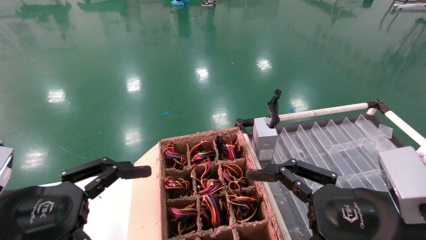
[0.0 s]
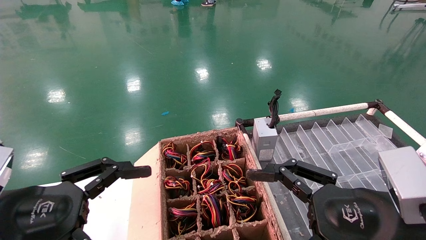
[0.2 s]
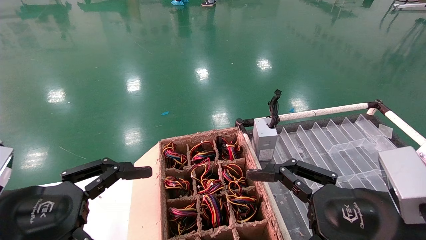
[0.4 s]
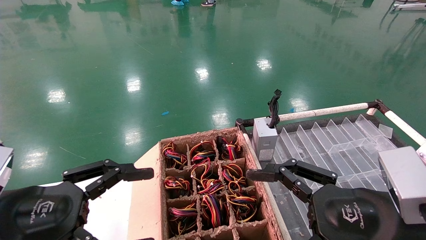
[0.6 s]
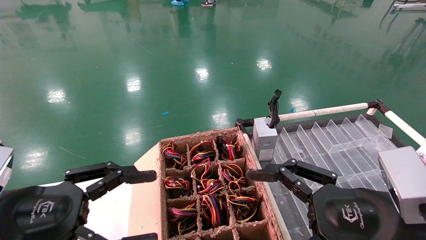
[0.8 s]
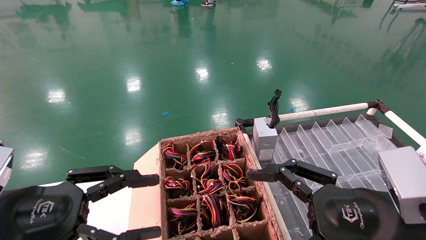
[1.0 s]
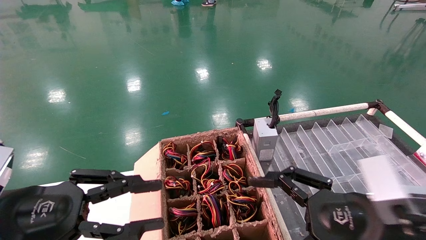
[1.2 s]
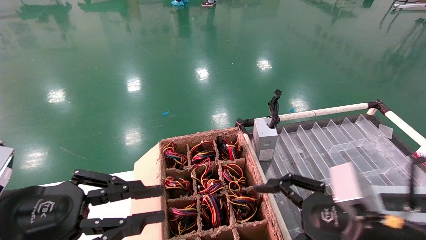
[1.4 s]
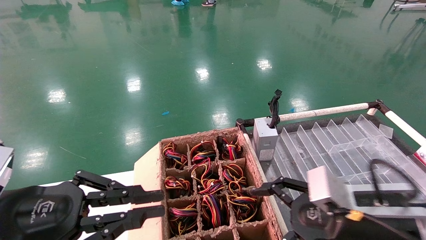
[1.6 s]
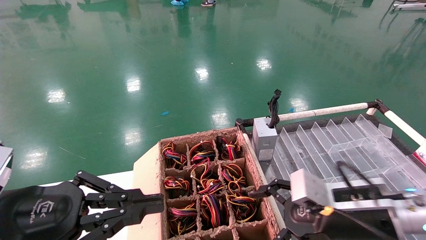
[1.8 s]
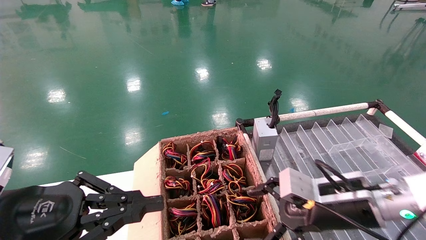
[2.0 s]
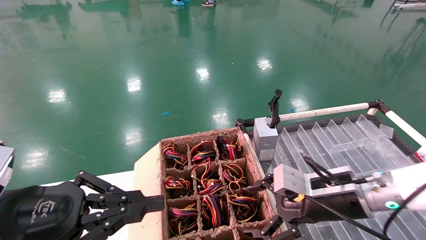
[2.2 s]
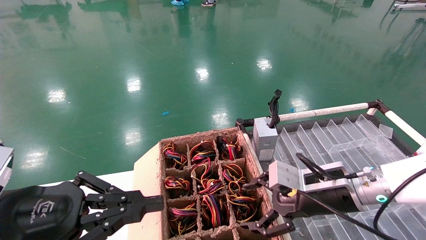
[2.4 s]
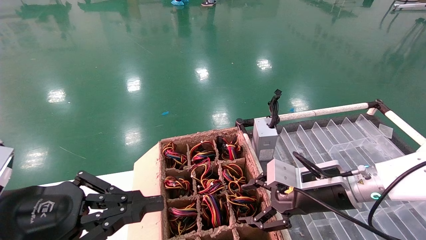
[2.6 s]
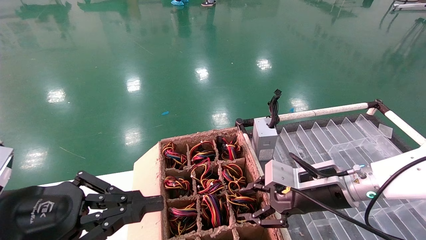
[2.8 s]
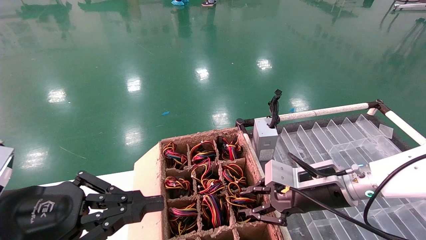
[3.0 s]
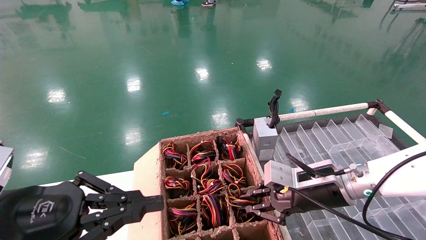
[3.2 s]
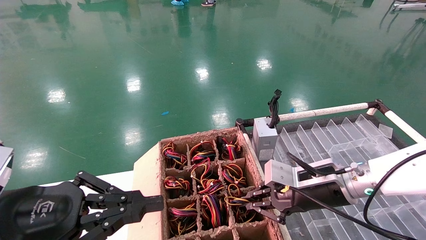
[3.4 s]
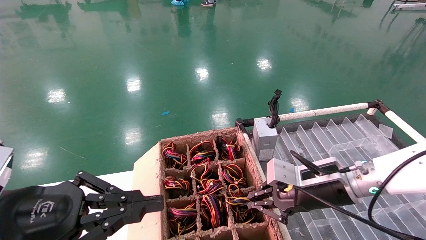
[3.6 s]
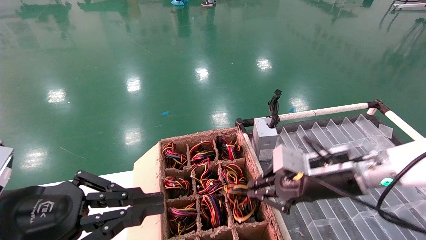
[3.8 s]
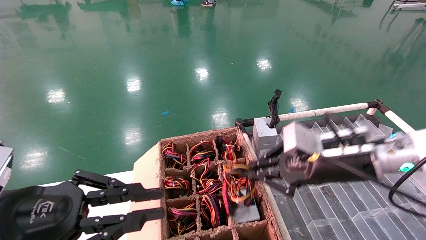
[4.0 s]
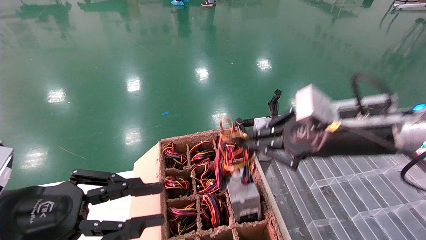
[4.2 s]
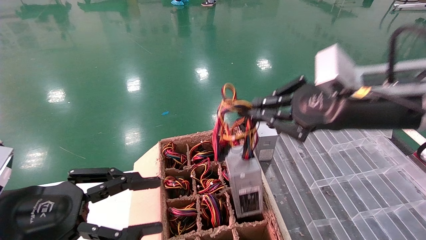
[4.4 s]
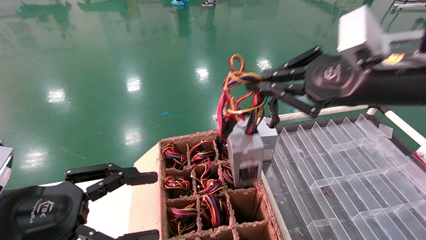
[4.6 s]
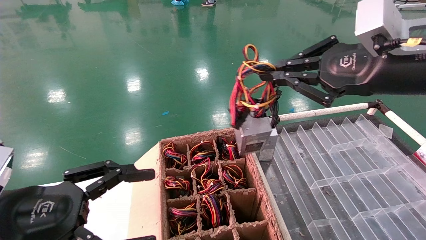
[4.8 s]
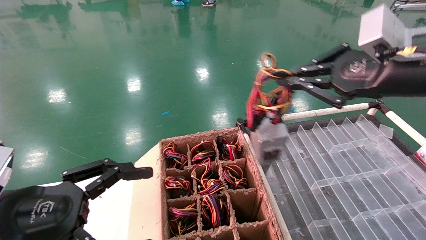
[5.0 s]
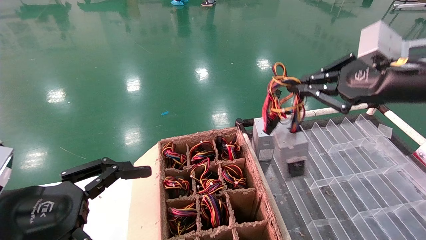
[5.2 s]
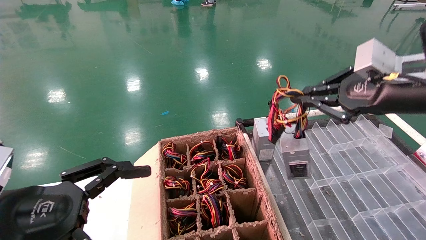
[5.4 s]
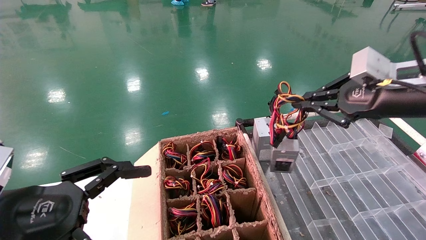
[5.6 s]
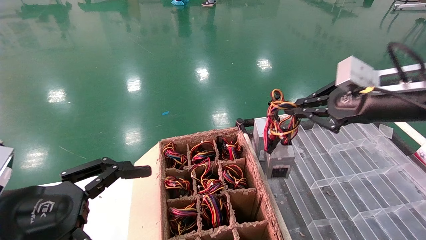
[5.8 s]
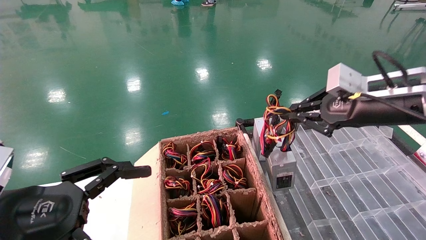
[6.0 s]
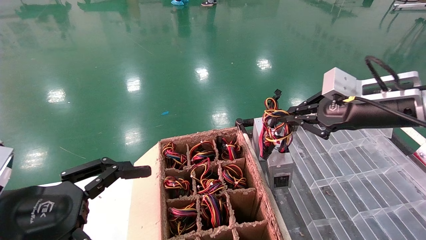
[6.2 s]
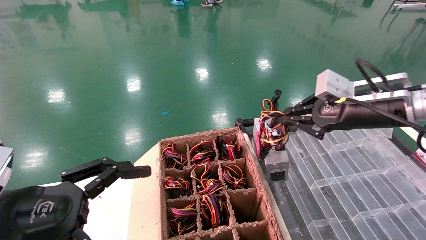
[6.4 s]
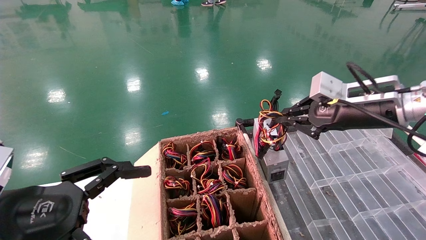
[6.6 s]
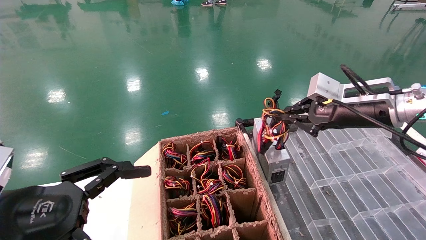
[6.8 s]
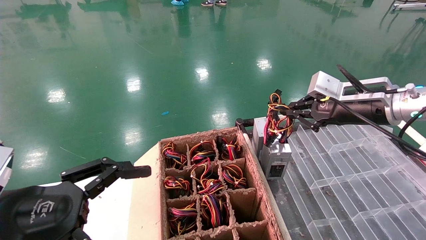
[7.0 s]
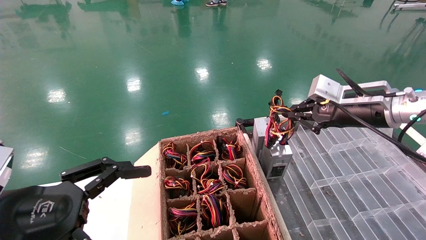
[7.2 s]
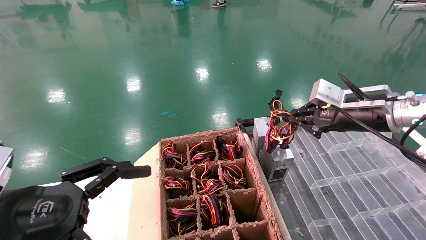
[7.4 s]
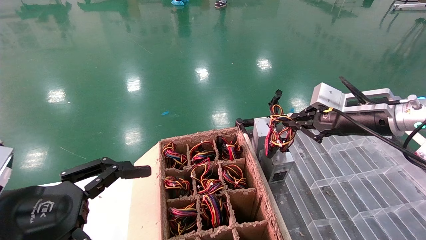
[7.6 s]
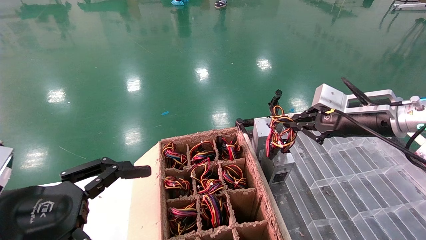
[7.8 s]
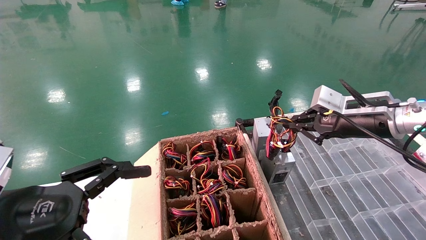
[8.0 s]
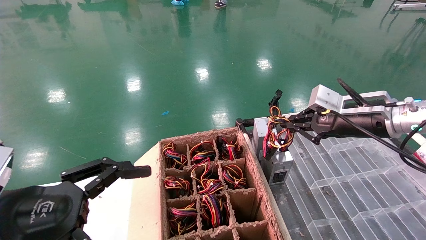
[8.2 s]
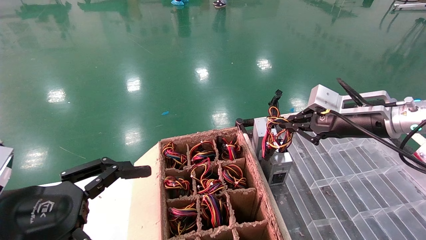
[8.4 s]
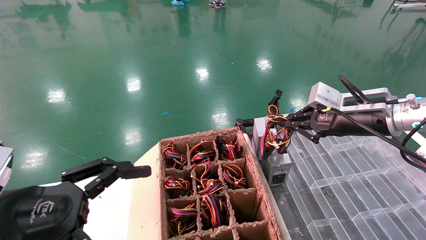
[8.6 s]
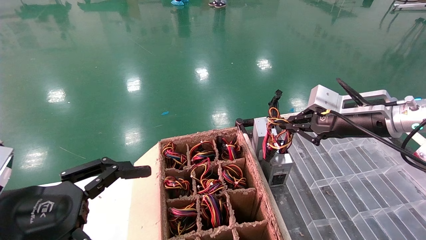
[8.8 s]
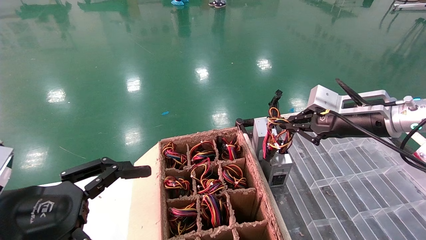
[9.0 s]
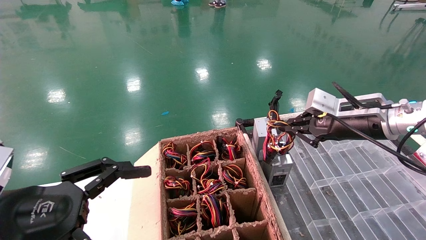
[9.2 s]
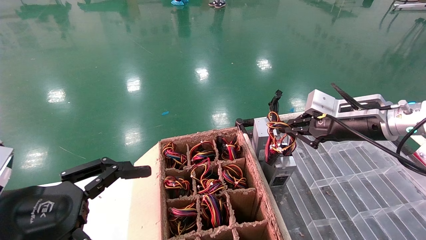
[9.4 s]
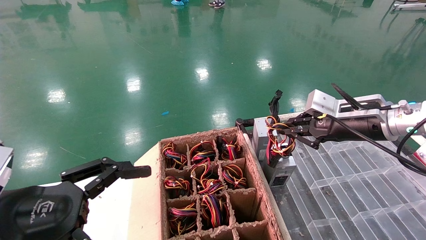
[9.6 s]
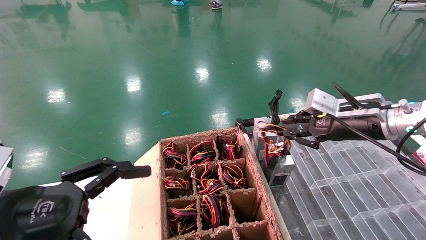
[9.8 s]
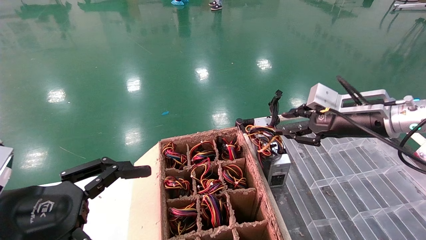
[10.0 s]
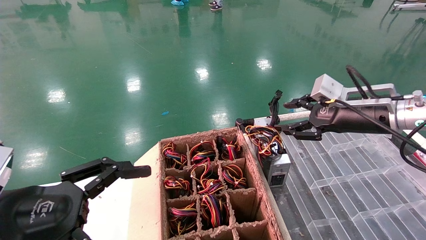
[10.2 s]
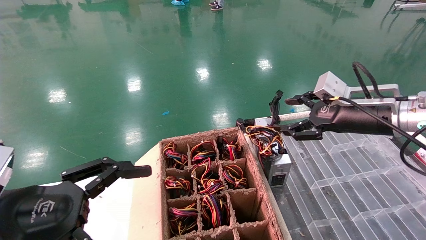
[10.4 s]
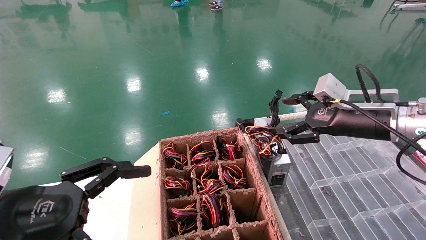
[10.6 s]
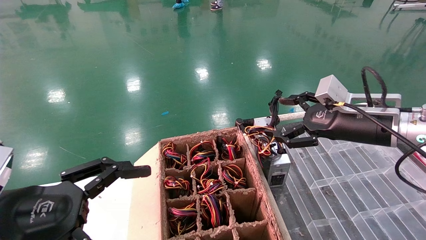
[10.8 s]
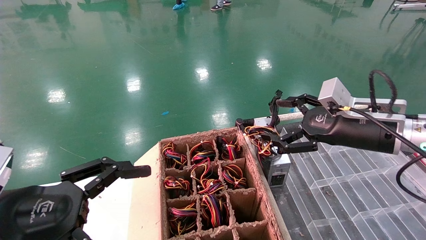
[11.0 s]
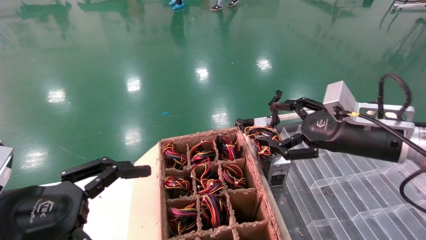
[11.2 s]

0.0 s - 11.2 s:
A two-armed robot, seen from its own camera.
Step, 0.8 s - 3.4 s: Grab and lift the power supply from the large box.
Step, 3.6 s - 9.8 s: Place the power supply on the operating table.
0.0 s - 1.6 s: The right gripper heads forward, covering some 5 cm, while the left gripper closes up.
1.6 s - 3.2 s: The right gripper is displaced forward by roughly 10 cm, and closes.
3.2 s - 4.8 s: The right gripper travels upward and backward by roughly 25 cm. Meanwhile the left gripper opens its fingers.
4.8 s - 6.4 s: The right gripper travels forward and downward by roughly 10 cm.
6.4 s - 8.0 s: The grippers make only small movements.
8.0 s - 9.6 s: The two grippers keep their place.
9.6 s - 11.2 s: The right gripper heads backward, covering about 5 cm, and opens.

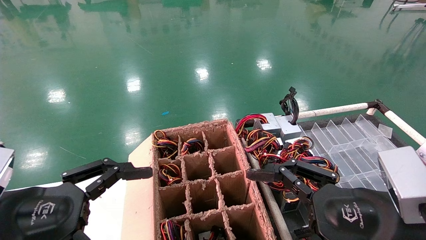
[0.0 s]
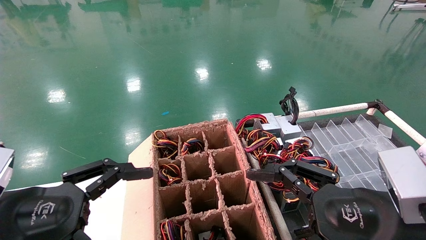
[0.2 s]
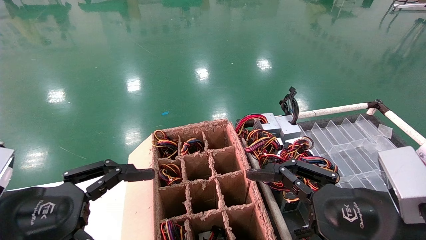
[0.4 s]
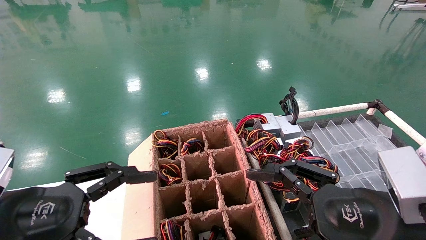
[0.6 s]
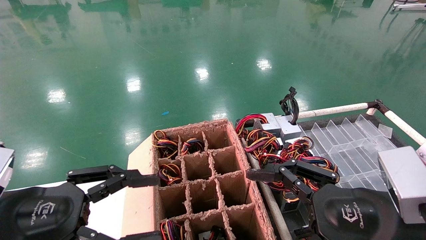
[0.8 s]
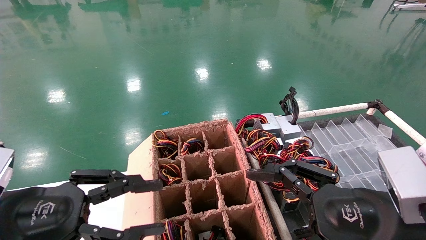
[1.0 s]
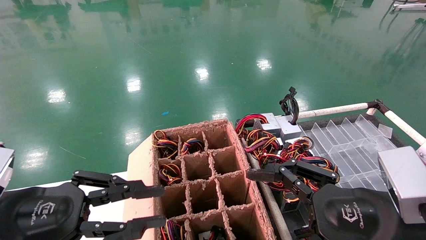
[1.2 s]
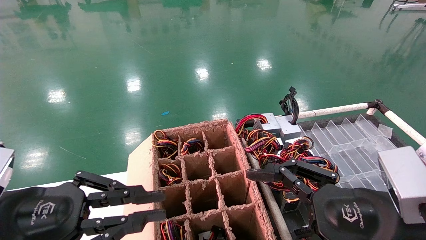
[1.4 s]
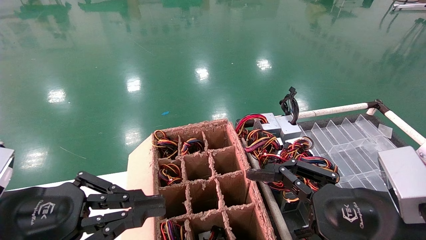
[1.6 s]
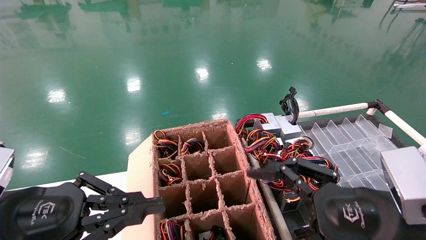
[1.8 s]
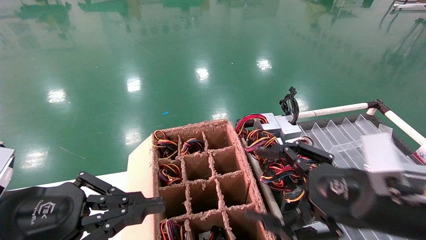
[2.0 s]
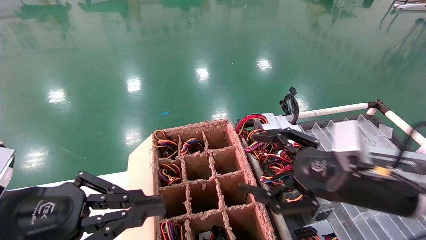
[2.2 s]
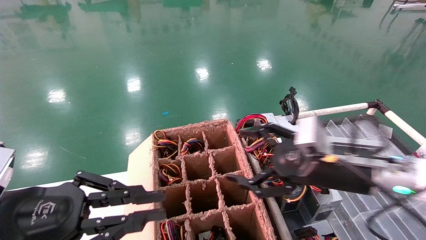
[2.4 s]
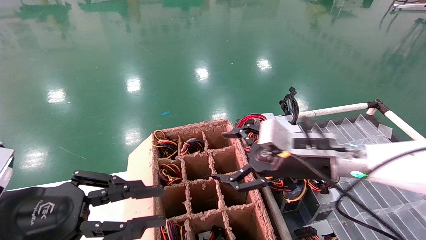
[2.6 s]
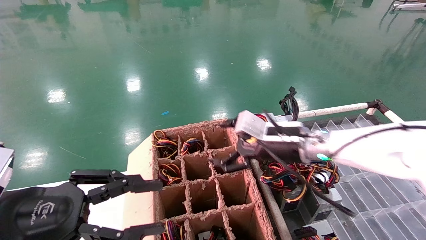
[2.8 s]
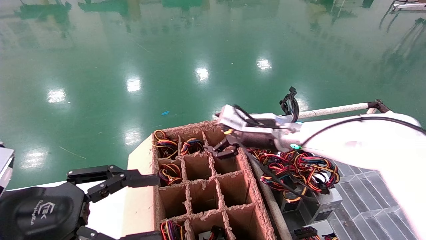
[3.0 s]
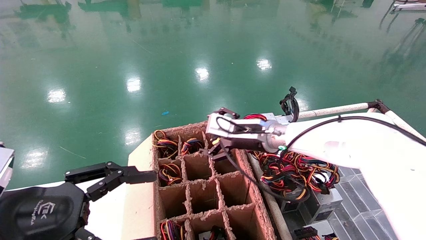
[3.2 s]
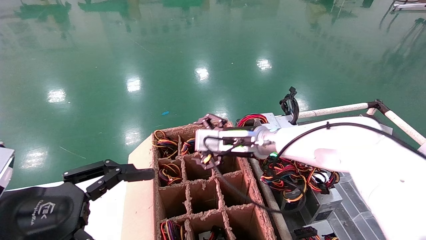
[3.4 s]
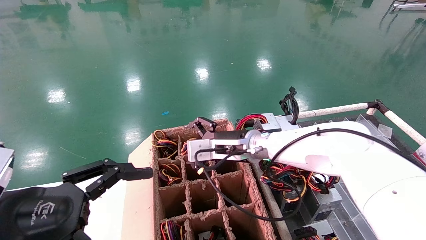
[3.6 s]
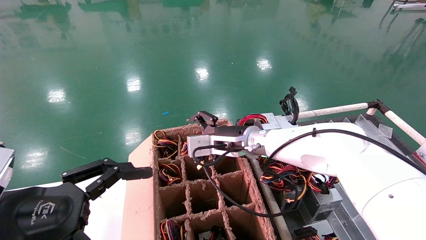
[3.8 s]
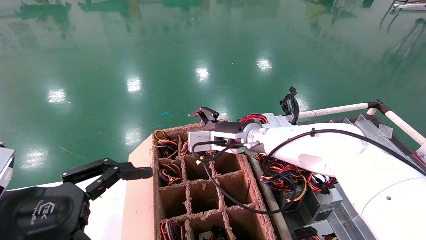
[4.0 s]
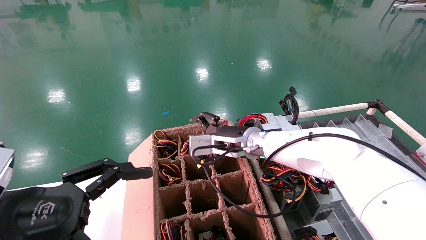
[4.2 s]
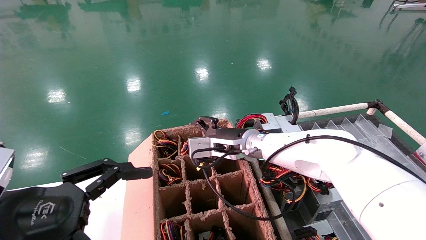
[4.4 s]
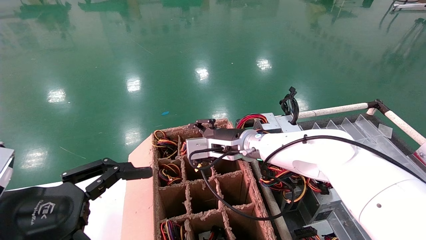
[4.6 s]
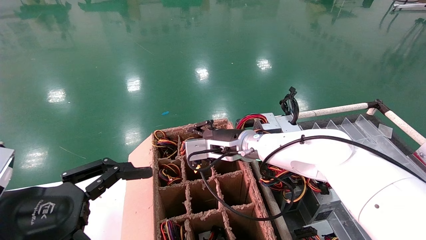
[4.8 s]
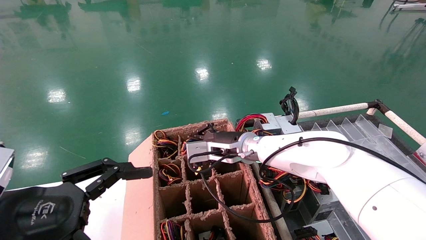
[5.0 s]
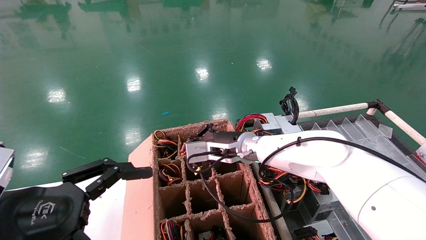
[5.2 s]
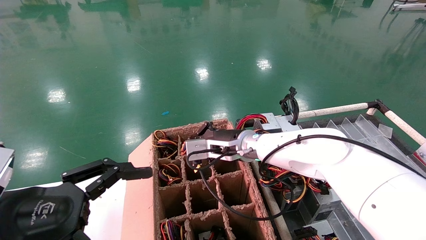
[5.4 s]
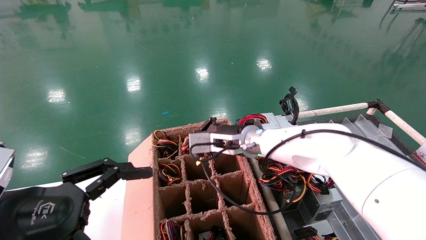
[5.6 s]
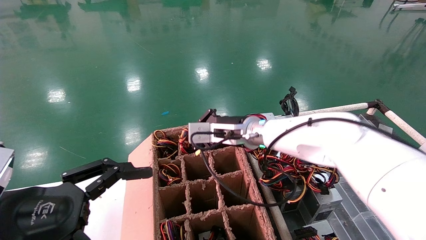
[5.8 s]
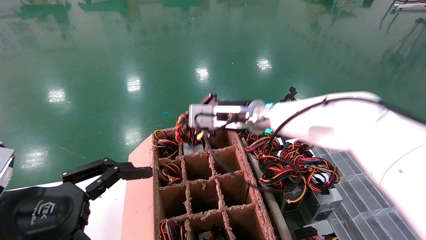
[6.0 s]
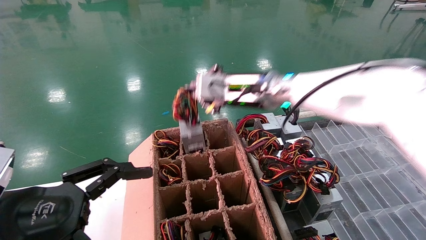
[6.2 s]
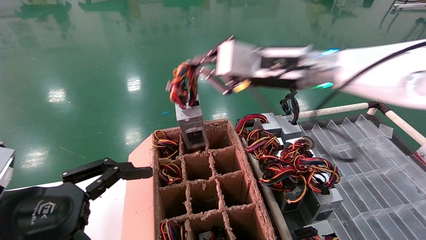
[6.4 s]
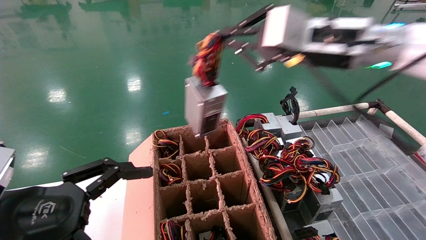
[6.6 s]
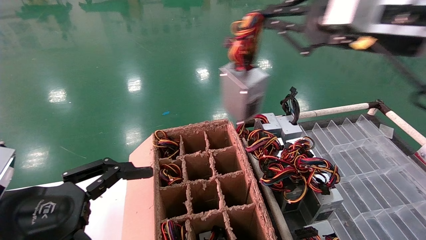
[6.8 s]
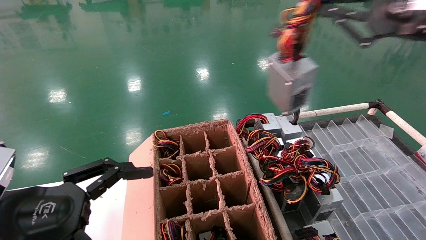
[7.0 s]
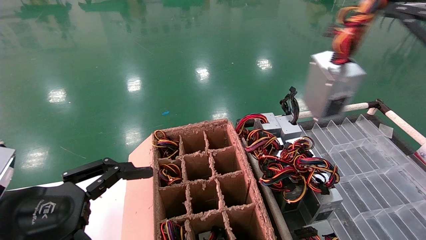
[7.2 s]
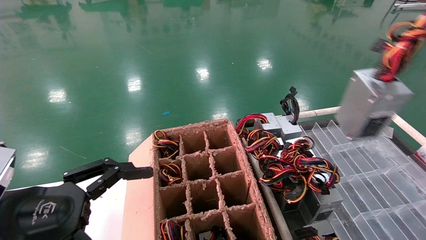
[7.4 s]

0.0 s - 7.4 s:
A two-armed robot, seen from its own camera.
Step, 1.0 s - 5.4 s: Grab and lift the power supply from the large box.
0.0 s - 1.4 s: The left gripper closes its fingers.
1.4 s - 3.0 s: The right gripper moves forward and to the left, approximately 30 cm.
3.0 s - 4.4 s: The right gripper goes approximately 5 cm to the left. The left gripper opens its fingers.
4.4 s - 6.0 s: The right gripper shifts approximately 10 cm upward, and closes up.
6.0 s - 7.4 s: The right gripper goes approximately 50 cm to the right and backward.
